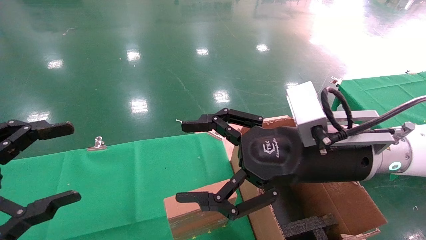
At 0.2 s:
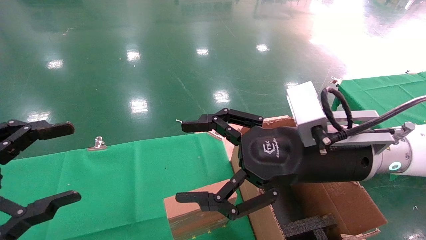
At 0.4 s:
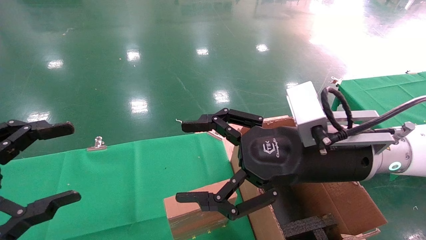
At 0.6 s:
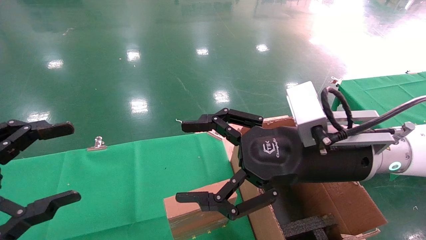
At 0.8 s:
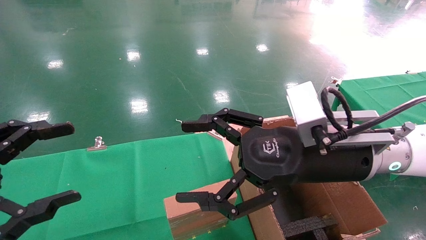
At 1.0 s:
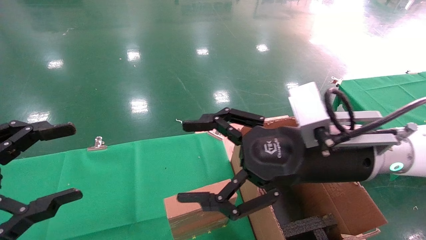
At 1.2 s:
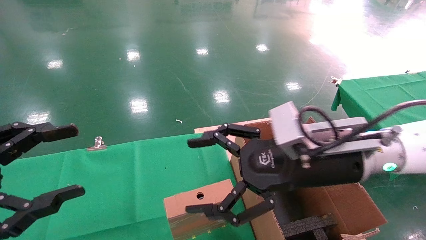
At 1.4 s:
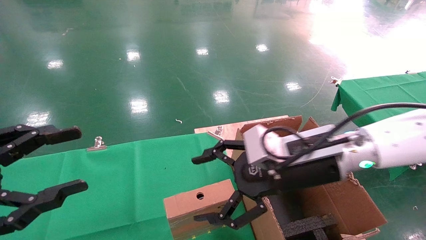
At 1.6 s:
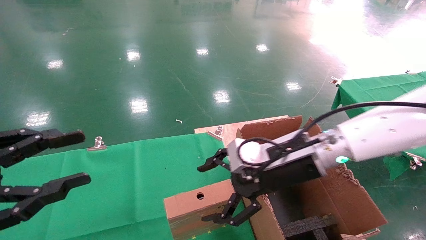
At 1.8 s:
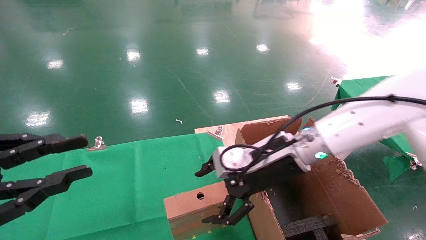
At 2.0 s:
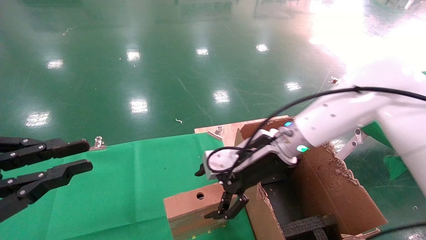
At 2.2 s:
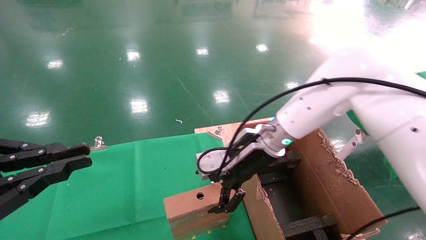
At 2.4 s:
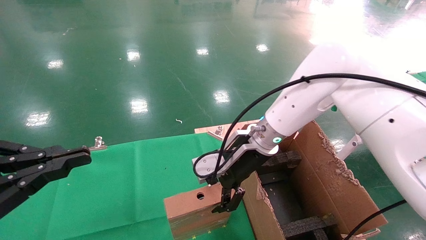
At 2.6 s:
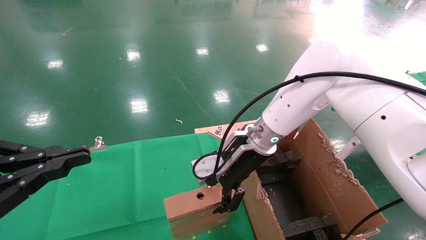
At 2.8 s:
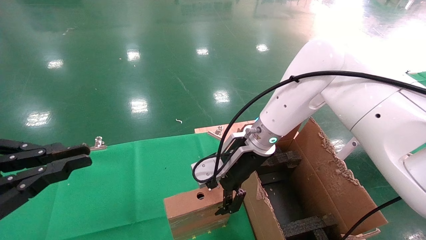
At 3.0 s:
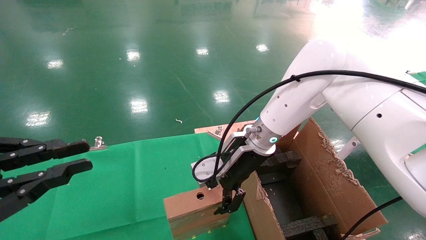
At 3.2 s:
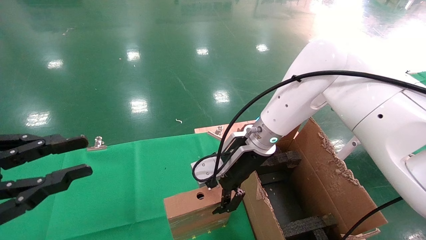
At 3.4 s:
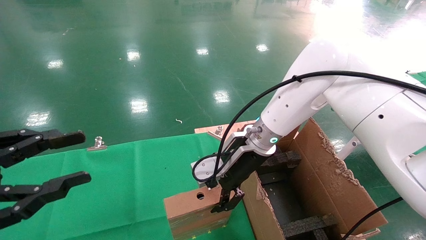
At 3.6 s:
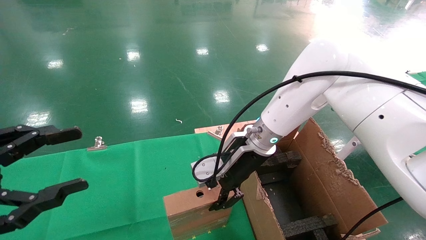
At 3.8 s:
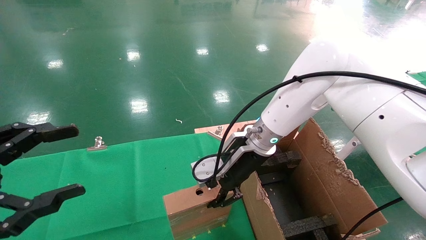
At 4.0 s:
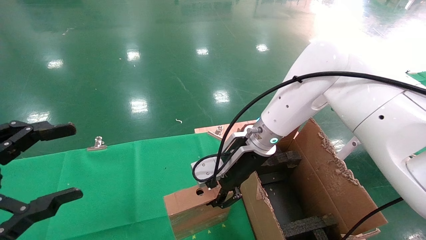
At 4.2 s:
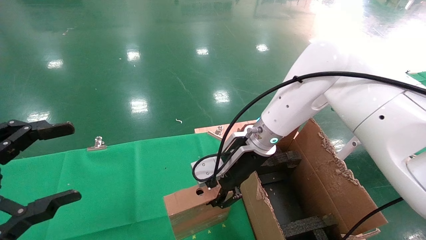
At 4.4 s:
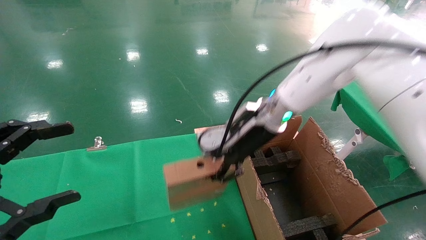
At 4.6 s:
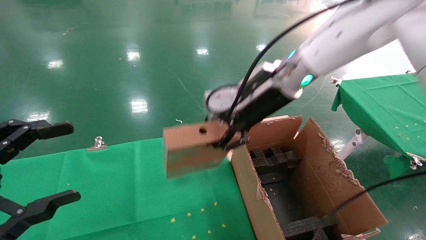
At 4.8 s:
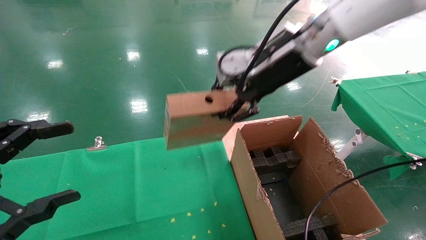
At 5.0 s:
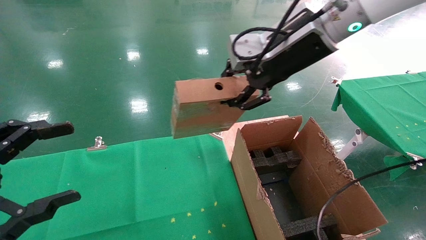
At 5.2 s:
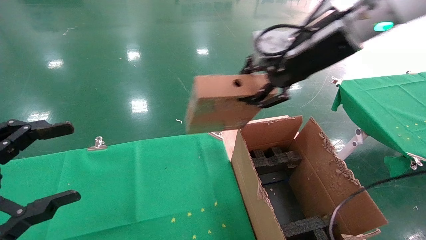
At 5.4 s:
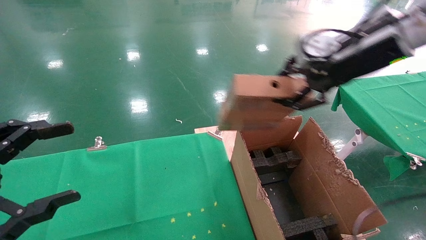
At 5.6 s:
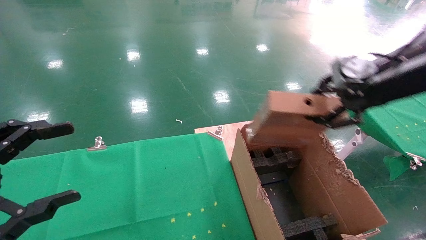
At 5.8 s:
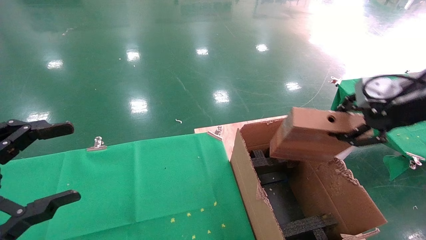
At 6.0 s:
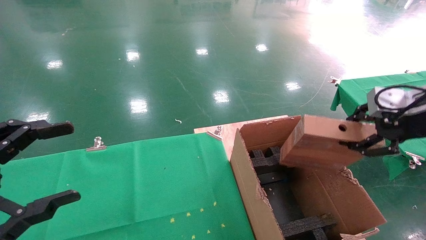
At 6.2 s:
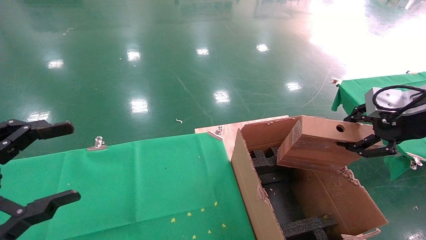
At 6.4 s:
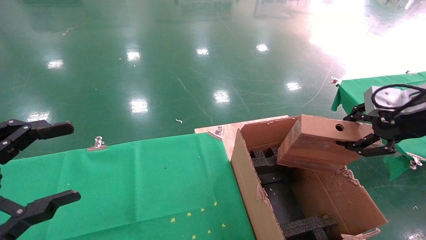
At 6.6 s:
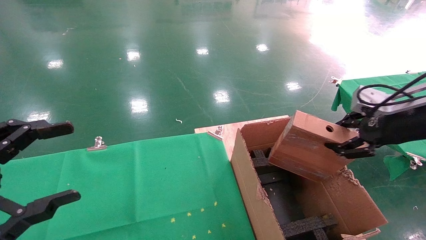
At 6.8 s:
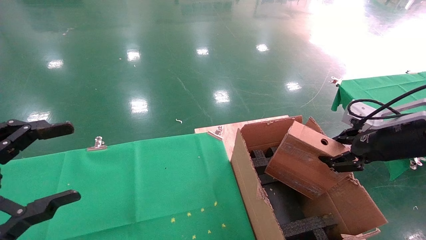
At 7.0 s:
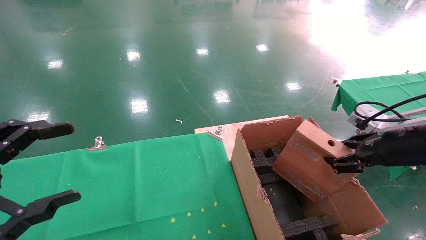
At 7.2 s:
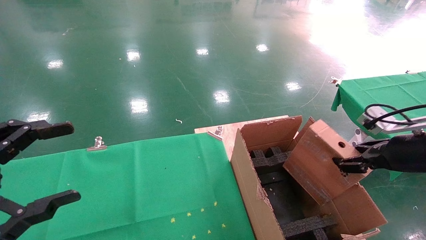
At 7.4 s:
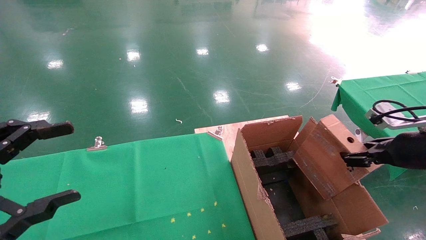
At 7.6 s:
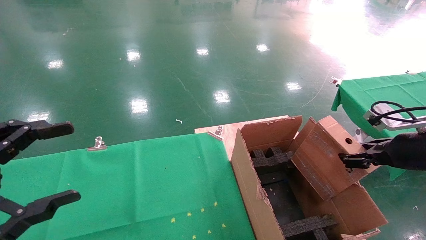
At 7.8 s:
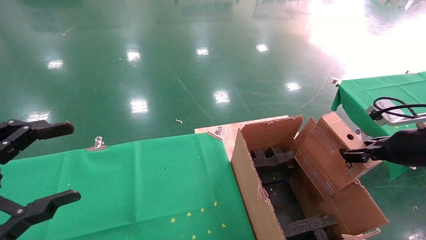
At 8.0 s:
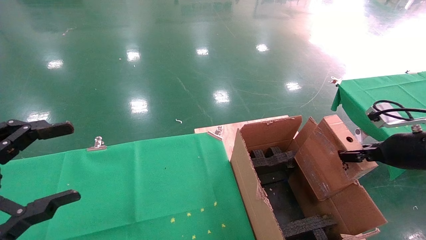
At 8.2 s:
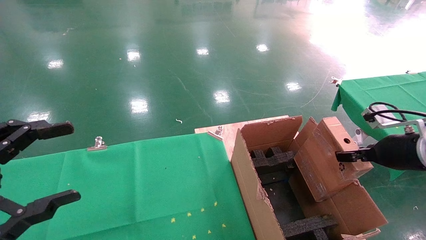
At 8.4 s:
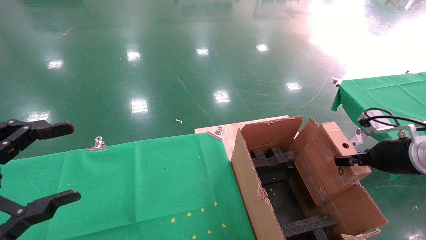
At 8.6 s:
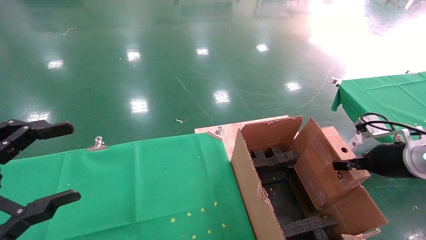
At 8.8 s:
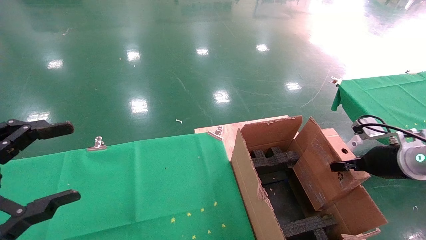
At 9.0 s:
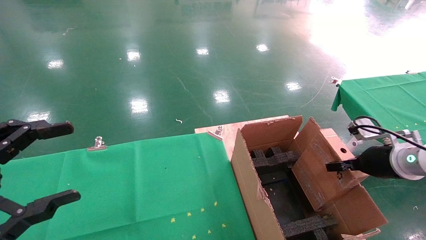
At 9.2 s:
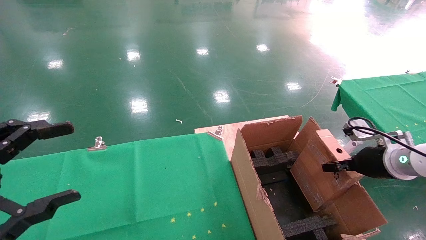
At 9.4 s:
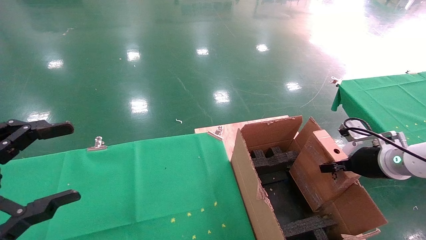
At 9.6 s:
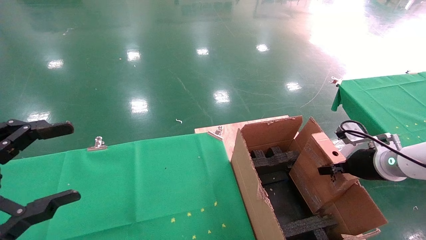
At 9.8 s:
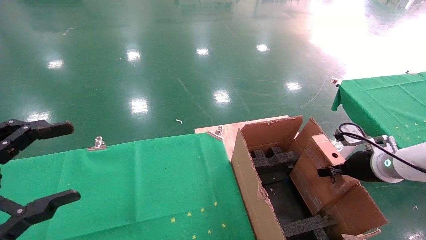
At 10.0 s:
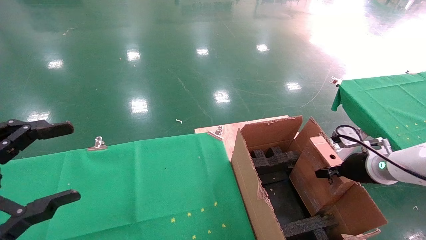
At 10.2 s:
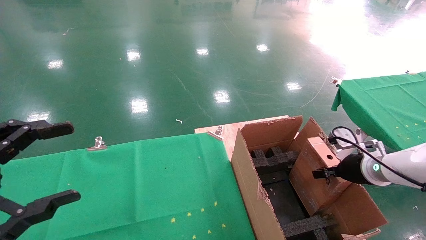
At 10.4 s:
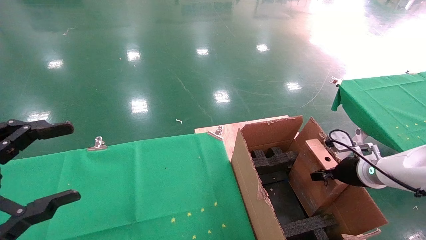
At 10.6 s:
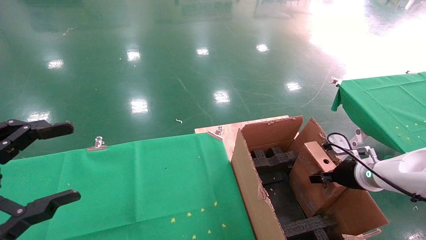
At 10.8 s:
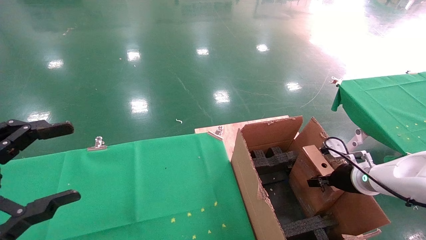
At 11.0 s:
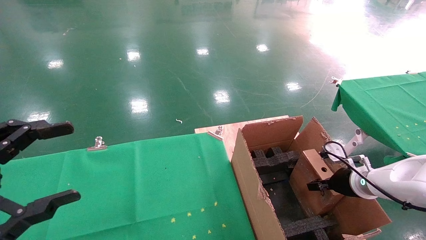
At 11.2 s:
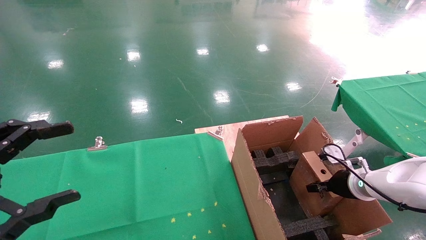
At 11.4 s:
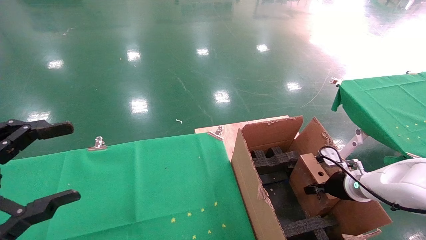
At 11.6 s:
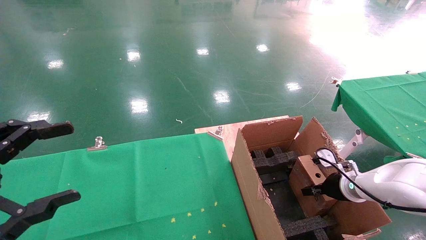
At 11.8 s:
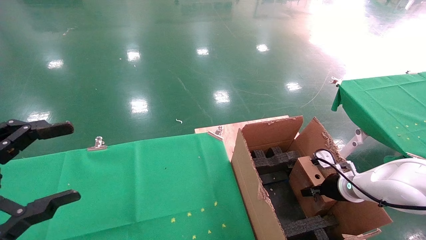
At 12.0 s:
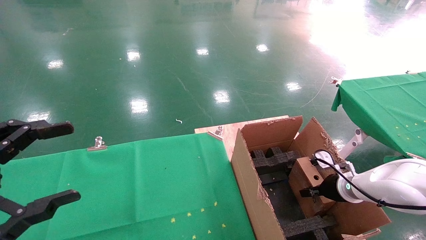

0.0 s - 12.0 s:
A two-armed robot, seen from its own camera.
Task of the whole recording: using a robotic arm to pick up a cardboard box and palace it the carton.
Step, 1.4 s - 3.6 s: Pick up the mouse and the power cord paper box.
0.0 s - 1.6 s: The right gripper shifts roughly 5 cm forward, while the left gripper closes its fingers.
1.6 s - 3.0 s: The left gripper closes its fingers, while the right gripper heads forward and to the left, covering roughly 10 cm.
3.0 s - 4.4 s: The right gripper goes some 5 cm upward, and closes, while the left gripper opens its fingers.
4.4 s - 6.0 s: The right gripper goes about 30 cm to the right and backward.
6.0 s - 7.6 s: The right gripper goes approximately 10 cm downward.
7.6 s - 9.0 s: The right gripper is displaced downward and forward by roughly 10 cm.
9.0 s - 10.4 s: The right gripper shifts roughly 5 cm downward.
10.4 s - 12.0 s: The right gripper moves downward, some 5 cm.

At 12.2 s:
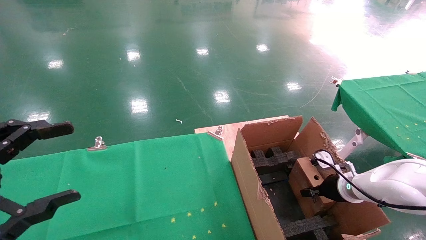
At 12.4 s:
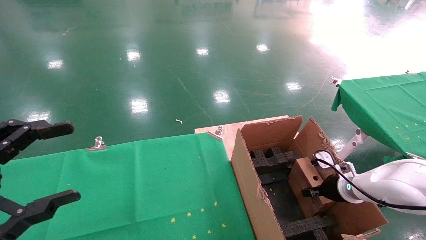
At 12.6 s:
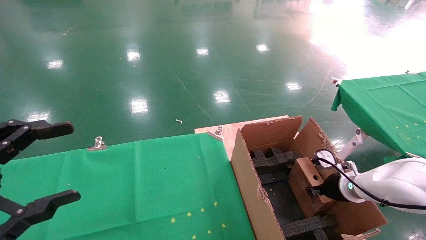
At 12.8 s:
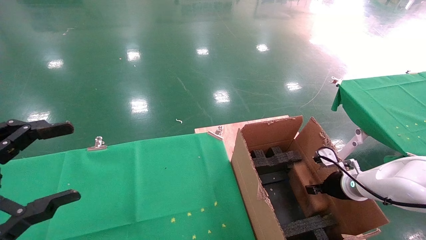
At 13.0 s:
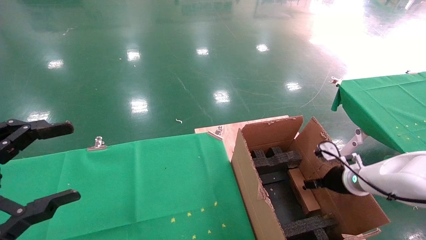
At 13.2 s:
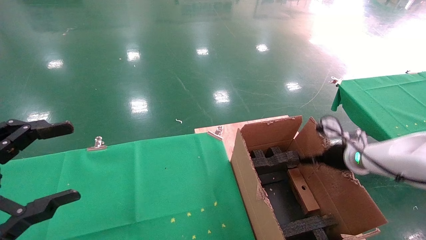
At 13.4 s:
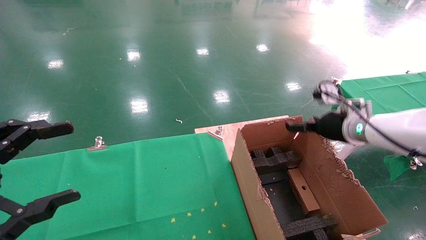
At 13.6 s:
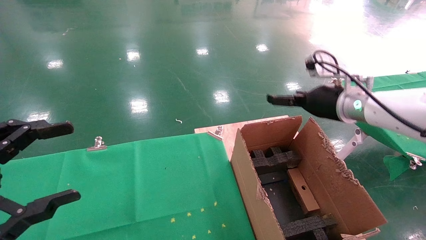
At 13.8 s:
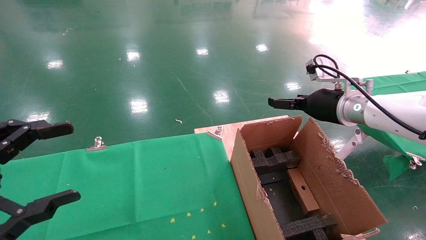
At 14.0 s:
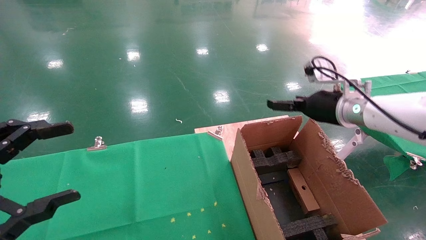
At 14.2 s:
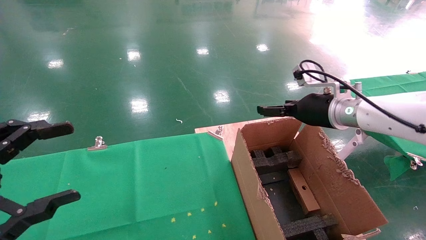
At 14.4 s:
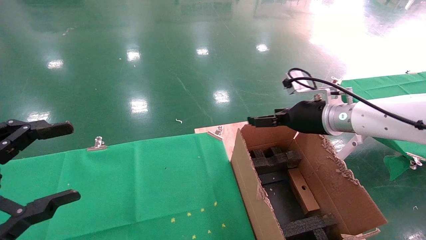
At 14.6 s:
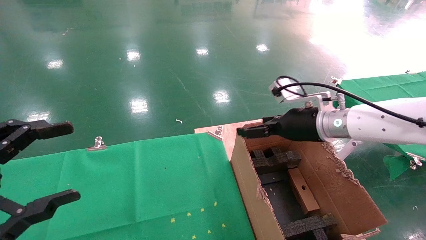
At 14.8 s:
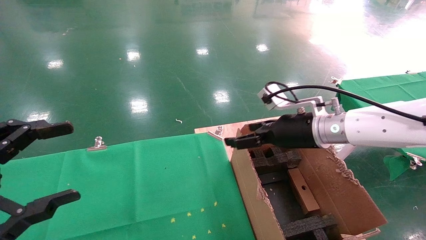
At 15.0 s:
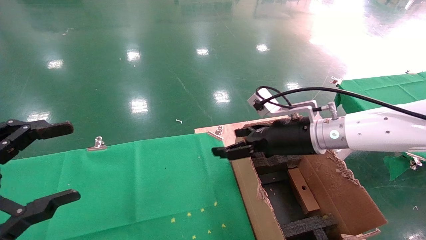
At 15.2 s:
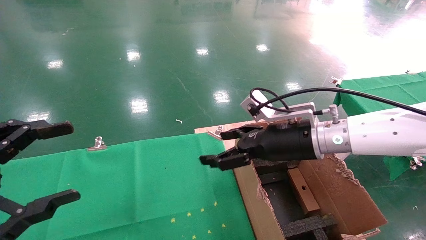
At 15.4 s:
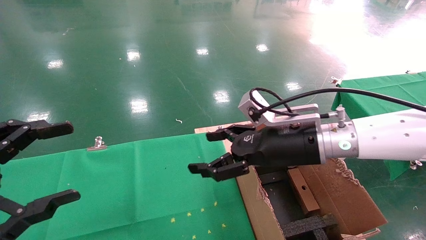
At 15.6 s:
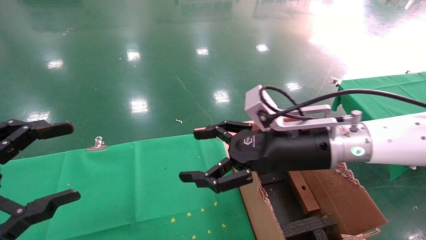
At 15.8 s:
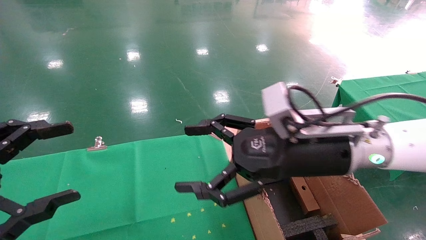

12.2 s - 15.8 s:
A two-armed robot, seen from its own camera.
Task of the whole recording: using a robotic arm to pick up a cardboard box and palace it the carton.
12.2 s - 14.0 s: The right gripper goes some 20 cm upward, and opens up.
14.0 s - 15.8 s: The right gripper heads to the left and backward, covering approximately 15 cm.

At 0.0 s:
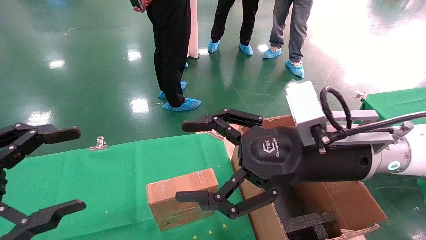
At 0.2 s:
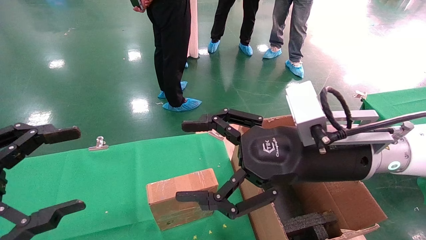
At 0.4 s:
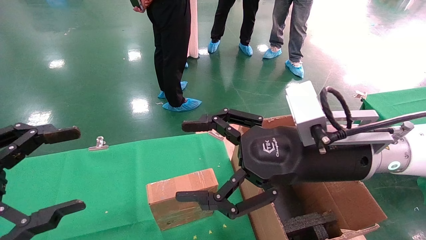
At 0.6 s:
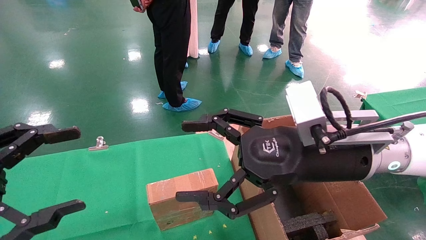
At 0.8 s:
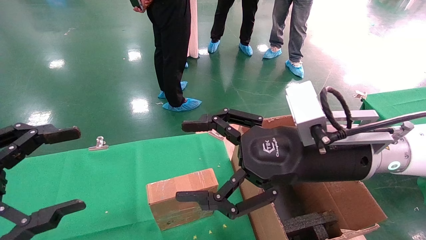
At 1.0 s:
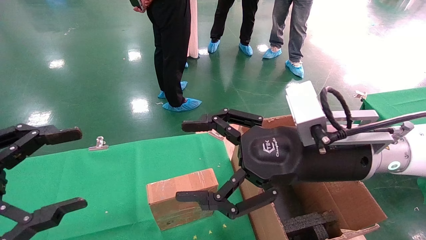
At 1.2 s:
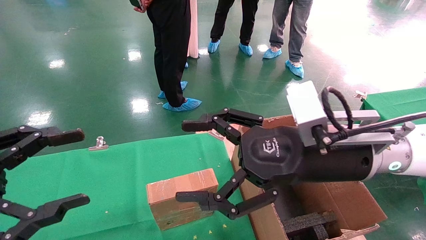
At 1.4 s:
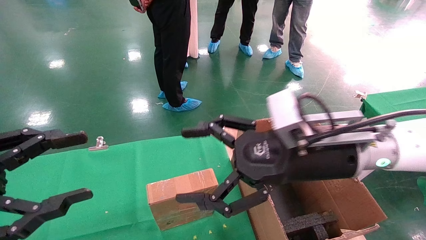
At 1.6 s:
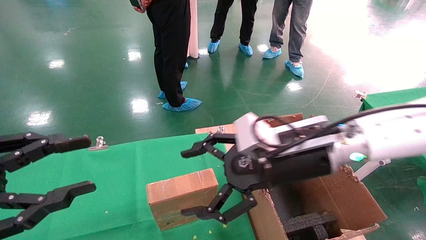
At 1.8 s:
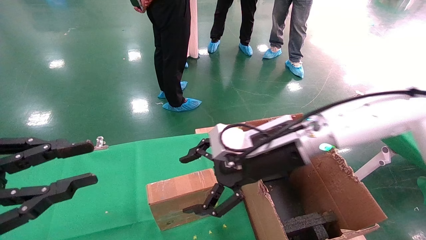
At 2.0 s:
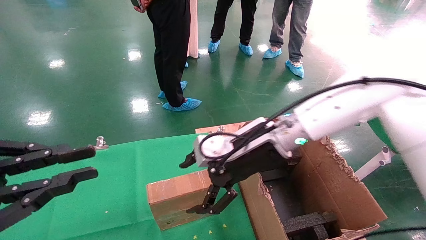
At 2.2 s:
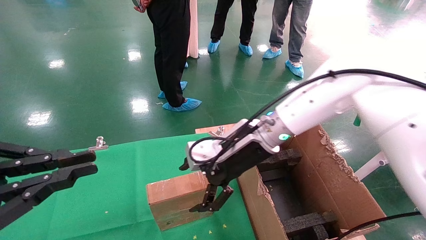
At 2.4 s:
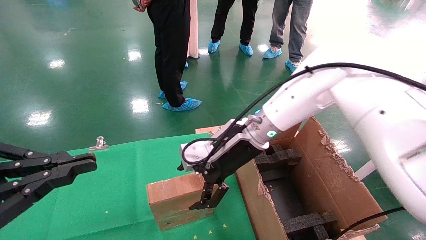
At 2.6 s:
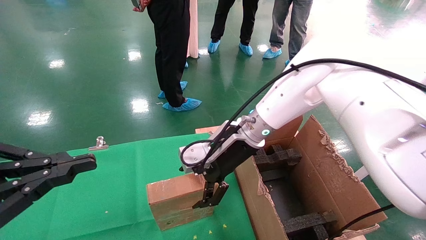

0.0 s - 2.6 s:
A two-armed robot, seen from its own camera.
Task of the whole recording: using a robotic arm to pick up a cardboard box and palace it the carton.
0.0 s - 1.2 s: Neither gripper changes place.
1.2 s - 2.6 s: The right gripper moves forward and to the left, some 20 cm; the left gripper closes its fingers.
